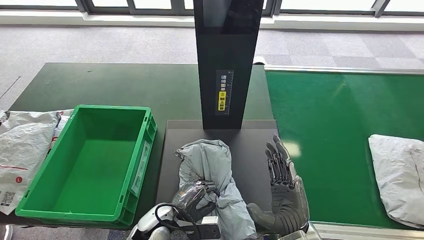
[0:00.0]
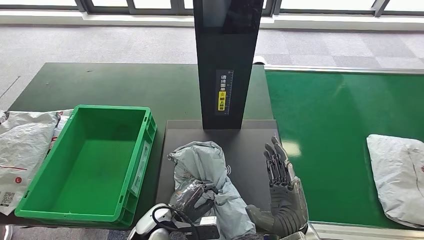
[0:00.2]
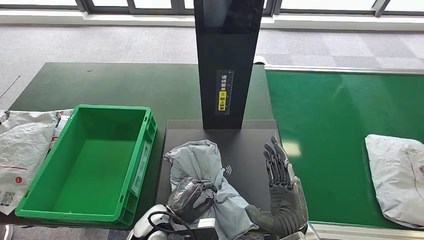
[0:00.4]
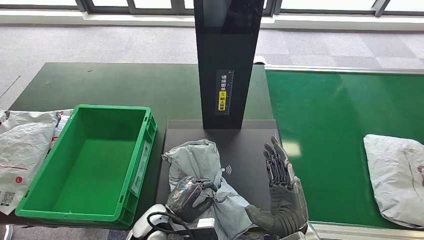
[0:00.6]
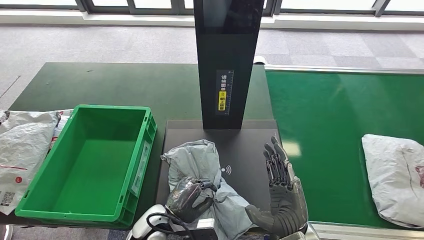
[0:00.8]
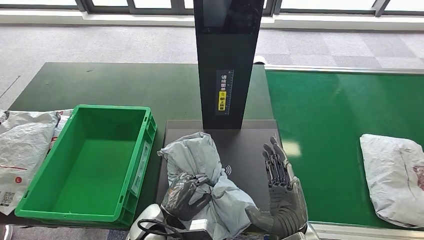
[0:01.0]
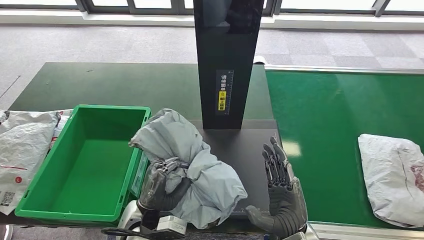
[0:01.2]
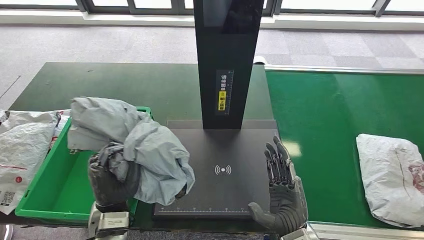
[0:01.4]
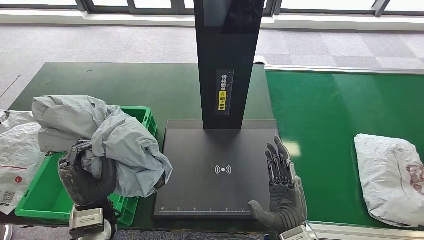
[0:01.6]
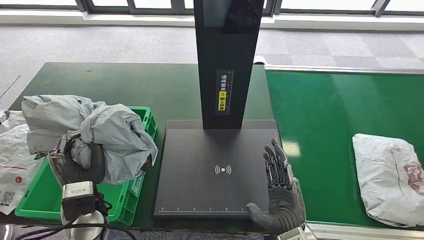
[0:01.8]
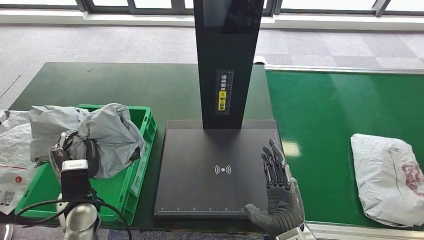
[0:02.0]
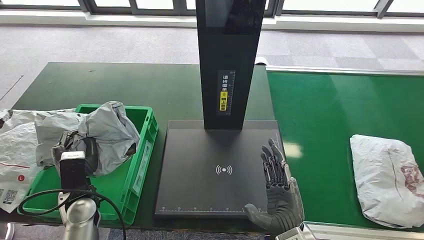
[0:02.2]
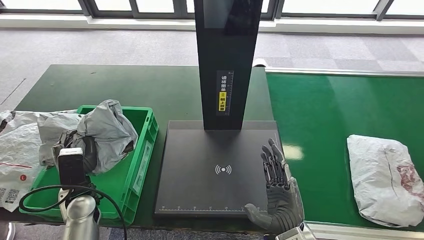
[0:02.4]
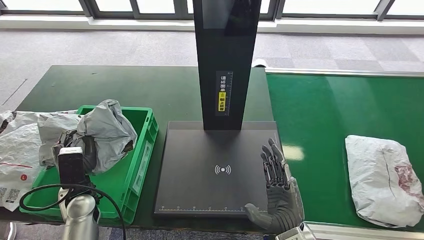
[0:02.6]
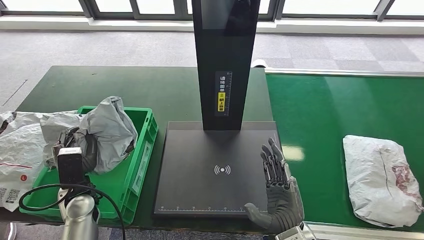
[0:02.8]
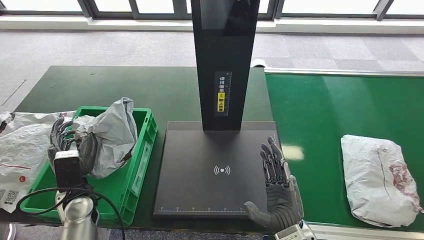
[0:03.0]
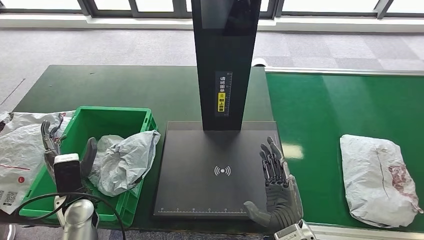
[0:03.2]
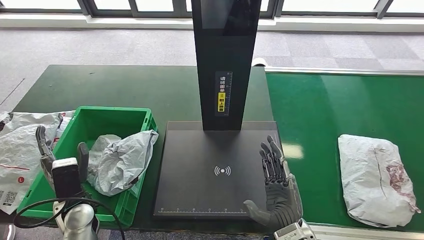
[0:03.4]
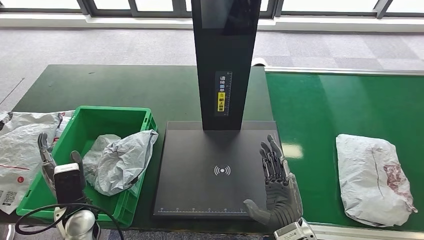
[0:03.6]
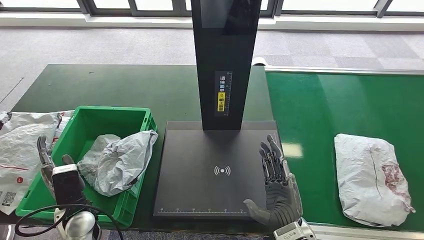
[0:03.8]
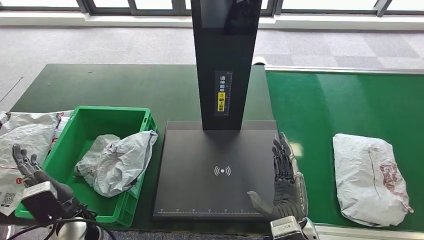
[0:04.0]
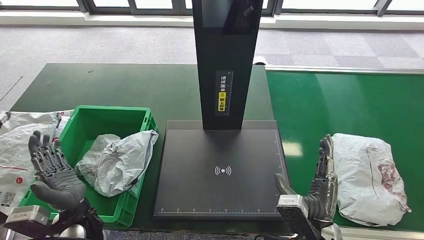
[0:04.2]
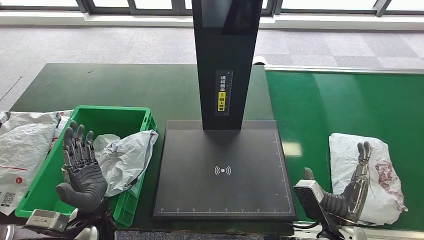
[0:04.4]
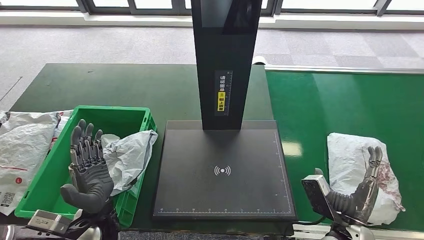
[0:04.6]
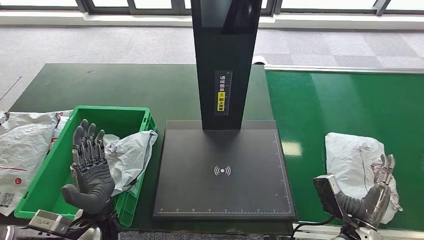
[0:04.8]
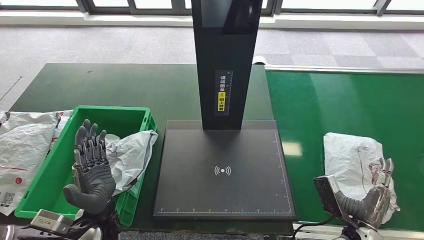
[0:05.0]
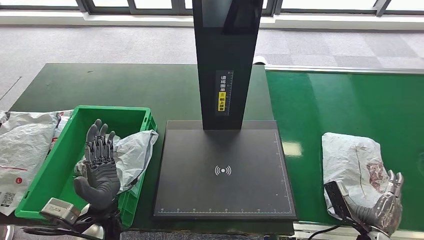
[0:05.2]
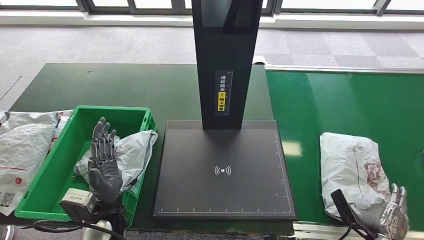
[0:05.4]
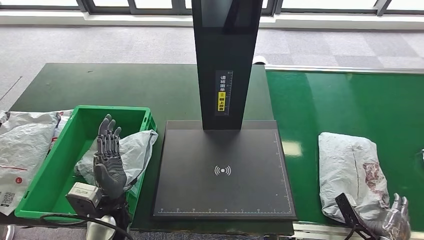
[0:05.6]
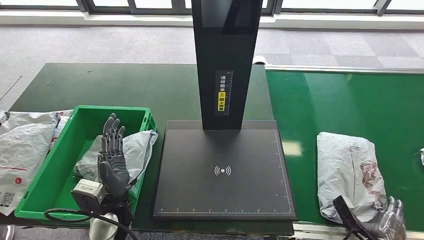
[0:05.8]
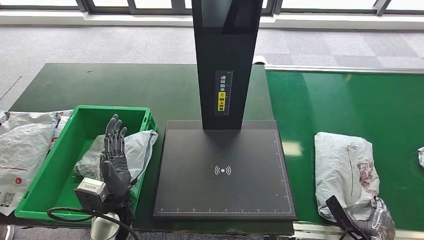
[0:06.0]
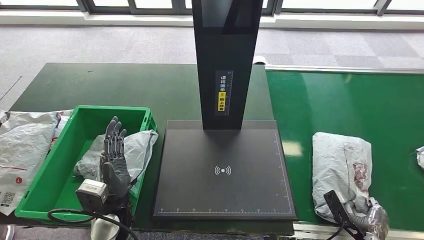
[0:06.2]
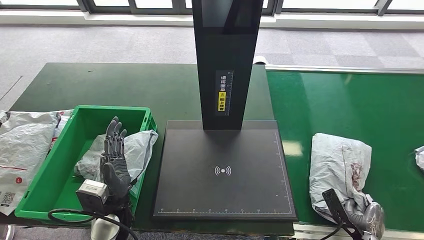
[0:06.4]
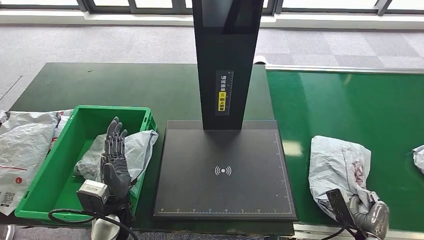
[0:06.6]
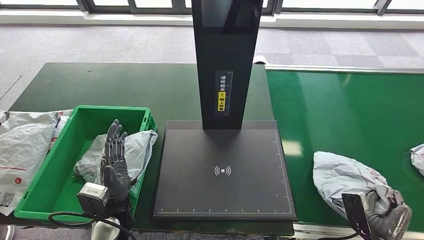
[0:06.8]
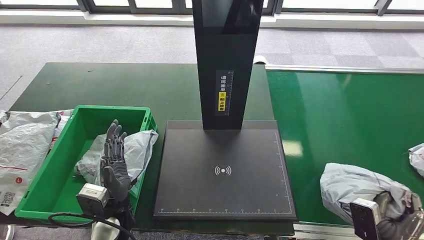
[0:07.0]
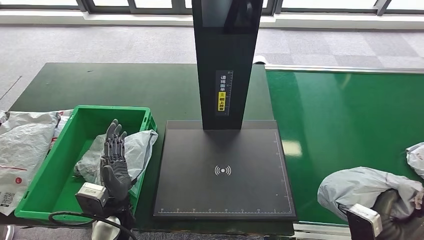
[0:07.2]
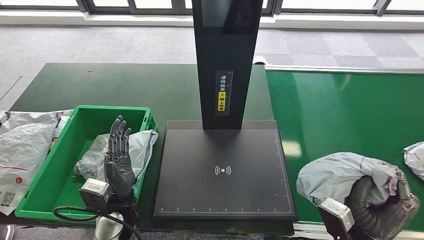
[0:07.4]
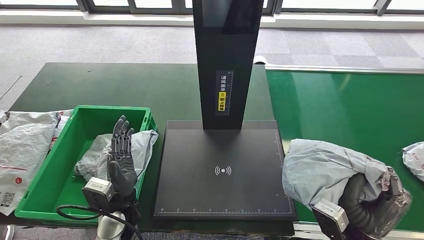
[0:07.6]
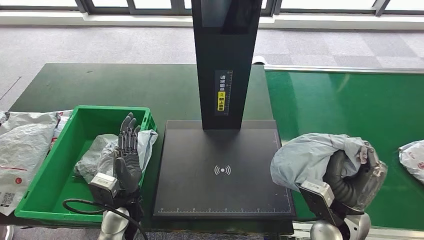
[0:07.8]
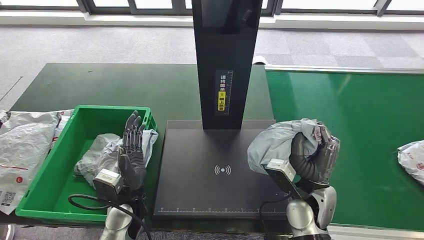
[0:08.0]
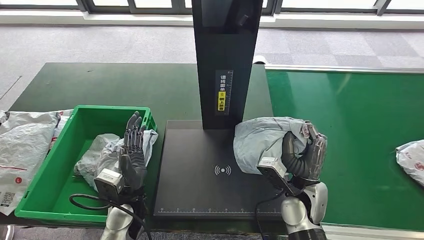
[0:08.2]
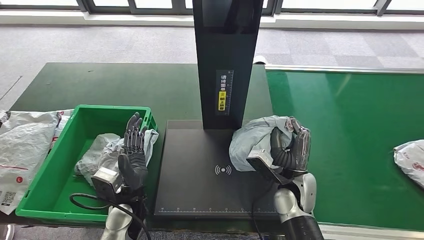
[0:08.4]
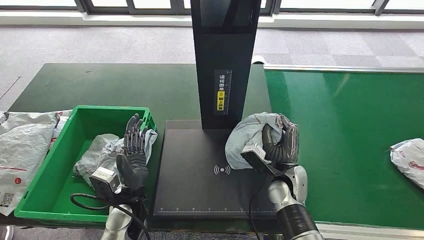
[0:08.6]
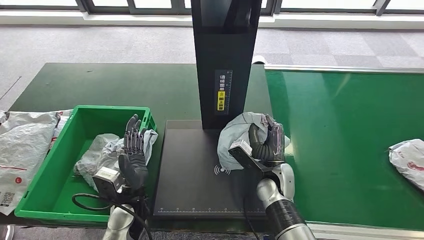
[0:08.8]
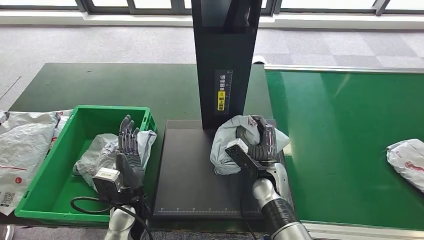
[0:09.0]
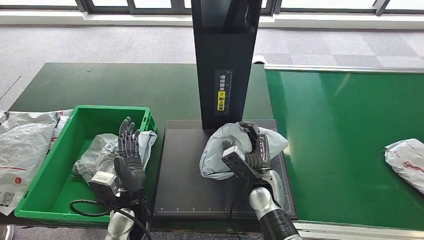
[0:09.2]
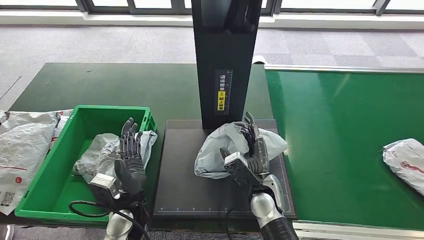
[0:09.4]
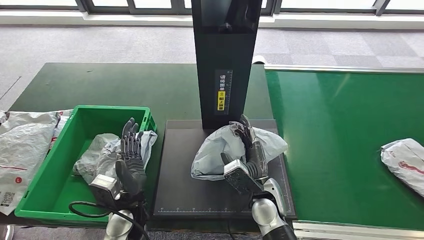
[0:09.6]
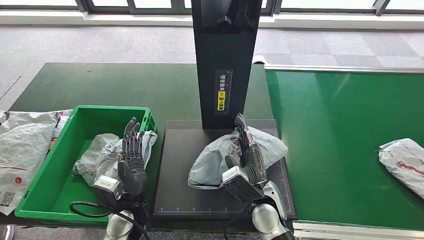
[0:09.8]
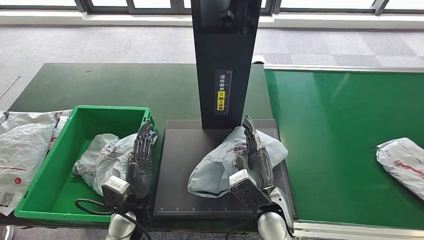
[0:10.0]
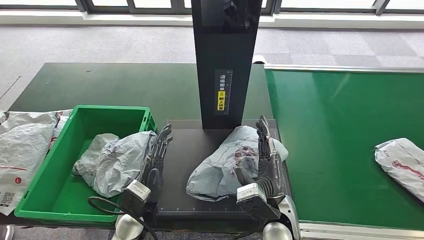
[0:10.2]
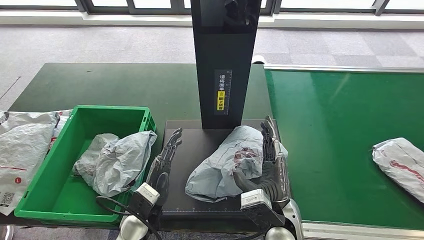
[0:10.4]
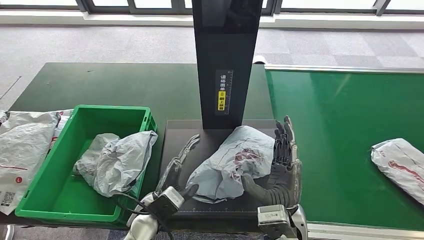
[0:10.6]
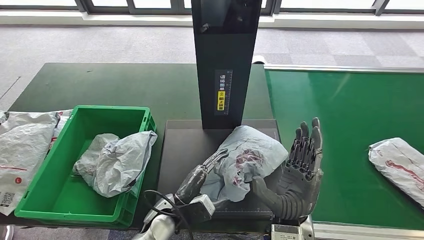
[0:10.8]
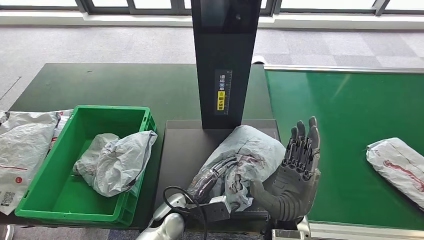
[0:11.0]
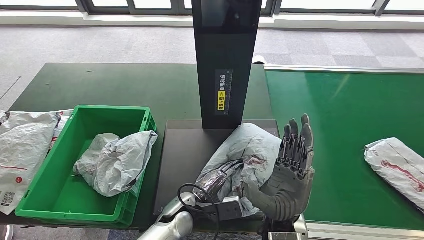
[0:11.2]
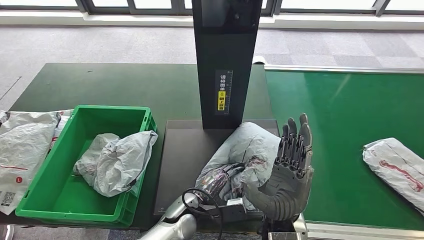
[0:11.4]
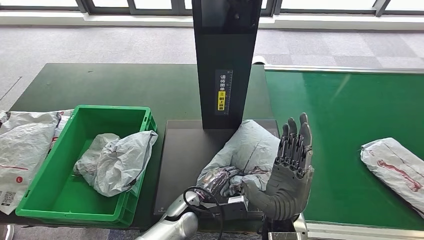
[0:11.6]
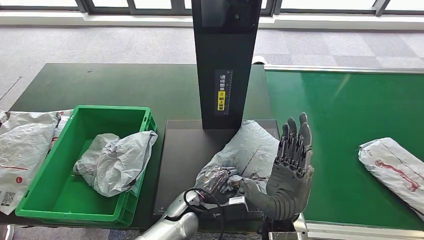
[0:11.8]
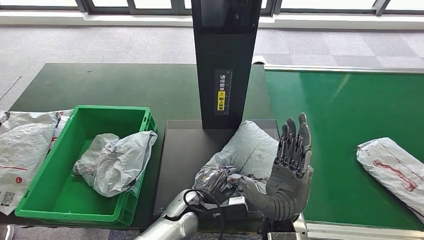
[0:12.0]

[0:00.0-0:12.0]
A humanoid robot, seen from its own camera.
Step, 0:00.8 to 0:01.4: Pick up the parcel from the inbound machine.
Step, 0:01.6 to 0:05.0: Put the parcel inside the courier box.
Step, 0:05.8 to 0:08.2: Pick up the parcel from the conveyor belt.
Step, 0:08.6 to 0:11.6: Place the parcel onto the inbound machine.
0:04.4 to 0:06.0: The right hand shifts some 20 cm to the right and downward.
0:06.0 to 0:07.6: The right hand heads upward and to the left, covering approximately 20 cm.
0:09.0 to 0:10.4: The right hand heads backward and upward, covering roughly 10 cm.
0:10.4 to 0:12.0: The left hand goes approximately 10 cm to the right.

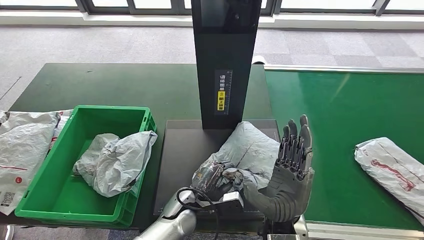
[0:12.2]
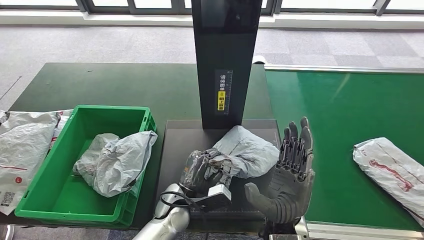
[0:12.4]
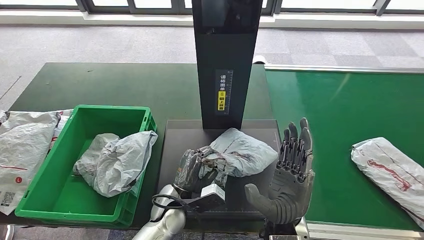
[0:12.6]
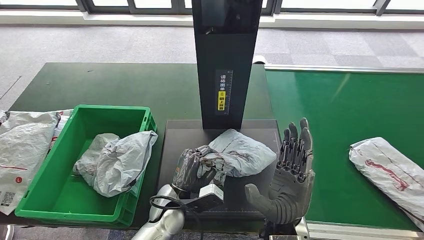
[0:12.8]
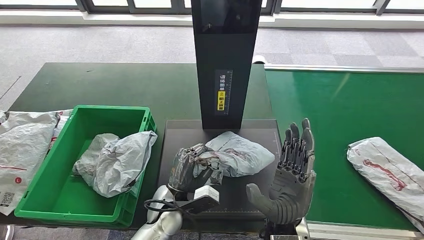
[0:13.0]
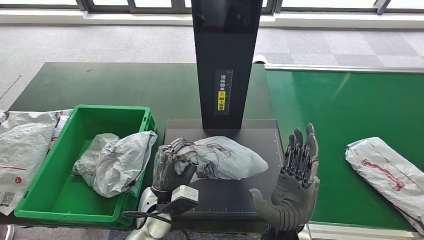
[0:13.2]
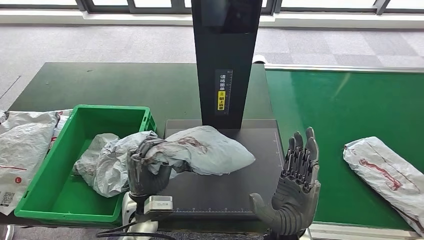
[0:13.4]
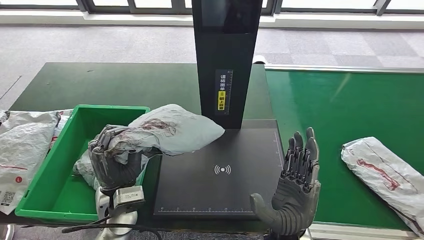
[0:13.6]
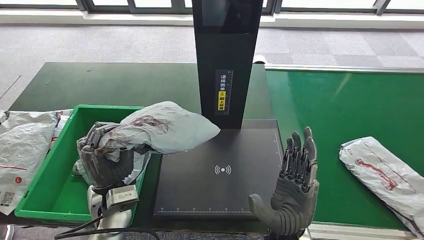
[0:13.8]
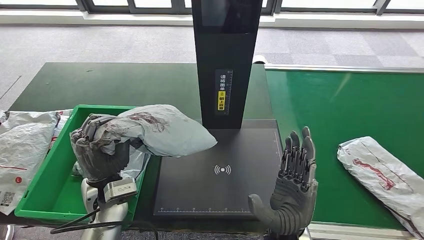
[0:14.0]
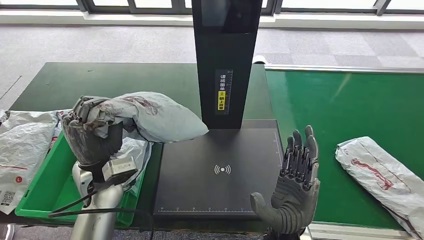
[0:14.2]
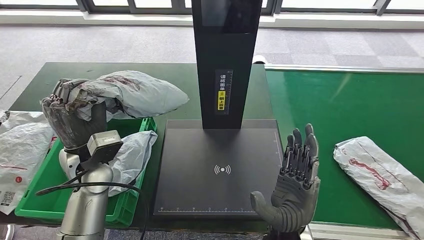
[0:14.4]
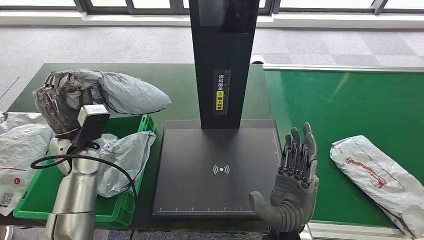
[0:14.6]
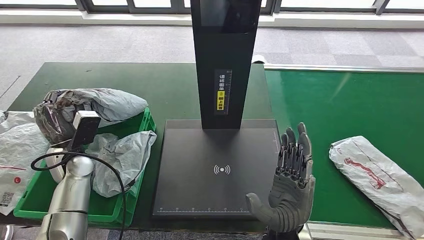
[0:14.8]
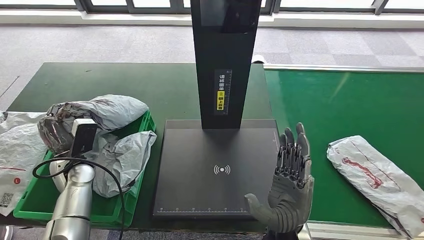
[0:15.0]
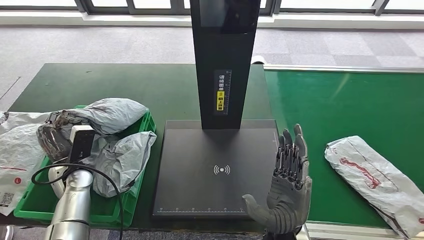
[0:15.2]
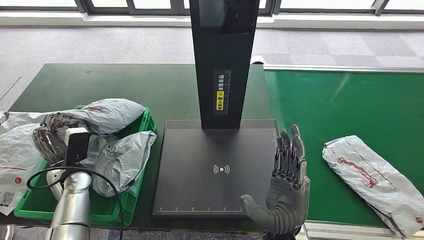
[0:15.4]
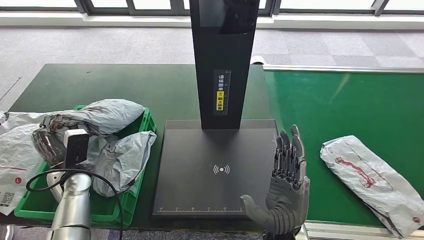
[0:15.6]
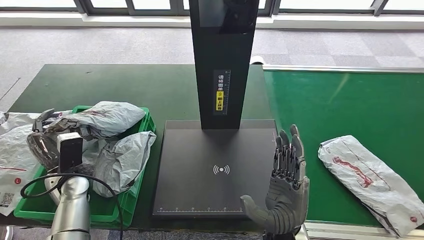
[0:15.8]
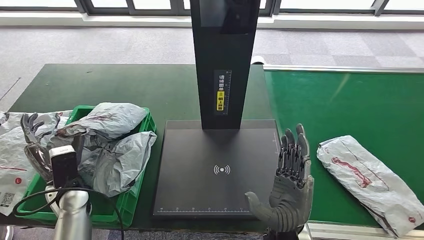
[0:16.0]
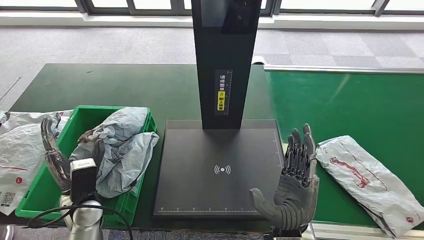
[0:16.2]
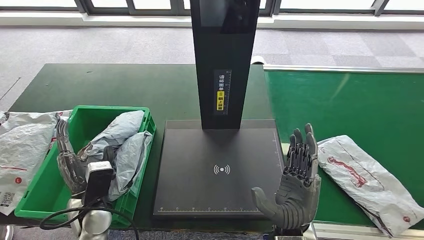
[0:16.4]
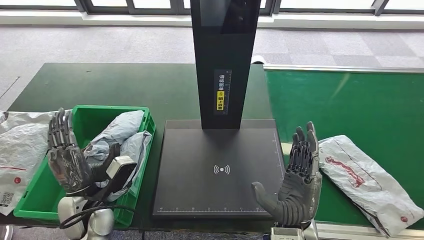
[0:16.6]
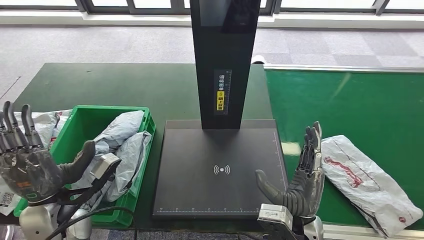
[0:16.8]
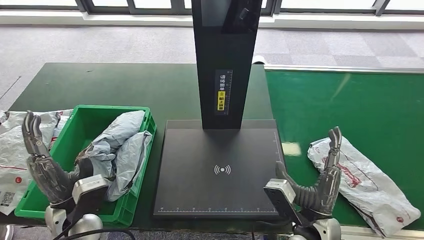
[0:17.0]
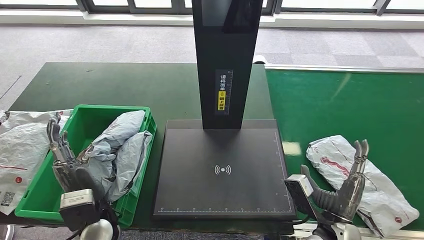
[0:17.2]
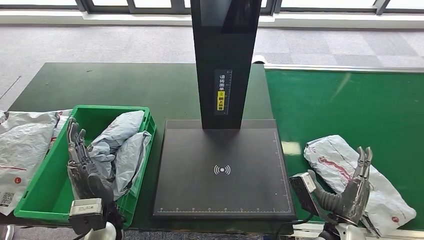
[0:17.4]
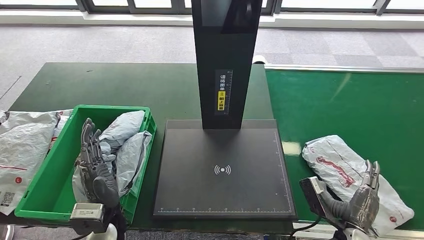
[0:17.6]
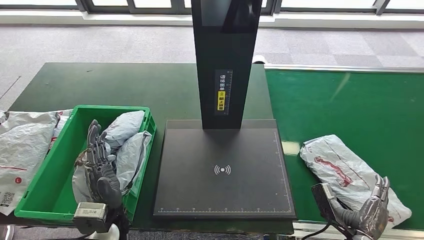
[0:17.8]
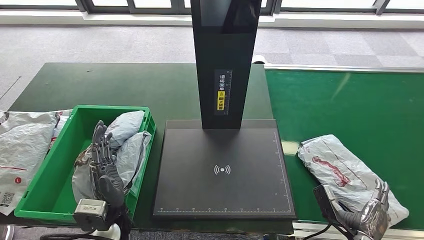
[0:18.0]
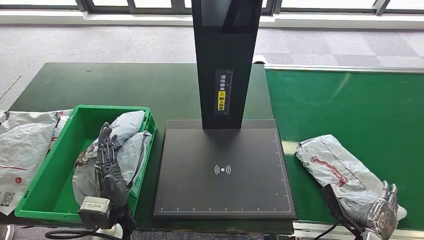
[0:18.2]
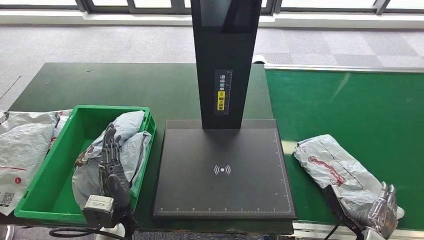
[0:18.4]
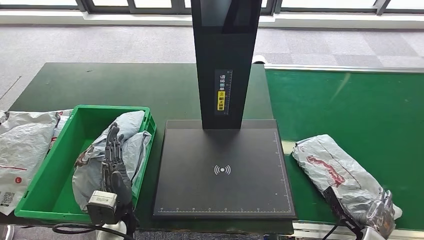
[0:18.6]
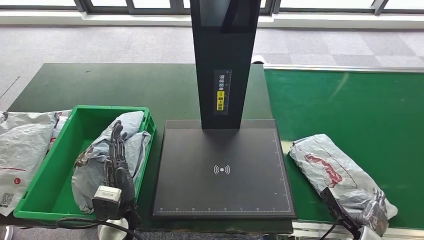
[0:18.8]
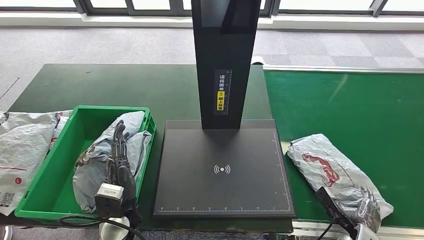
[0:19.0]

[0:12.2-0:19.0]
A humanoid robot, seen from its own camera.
Step, 0:12.2 to 0:13.4: Pick up the parcel from the inbound machine.
Step, 0:14.4 to 0:17.8: Place the parcel into the delivery box.
0:17.6 to 0:19.0: The right hand heads downward and to the right, covering roughly 15 cm.
